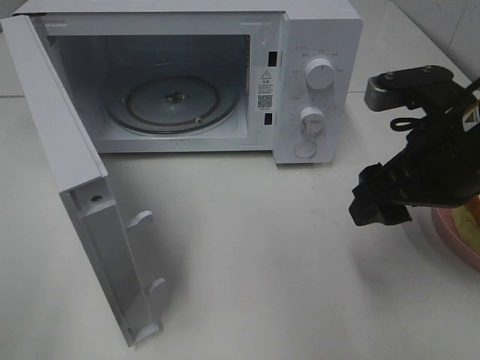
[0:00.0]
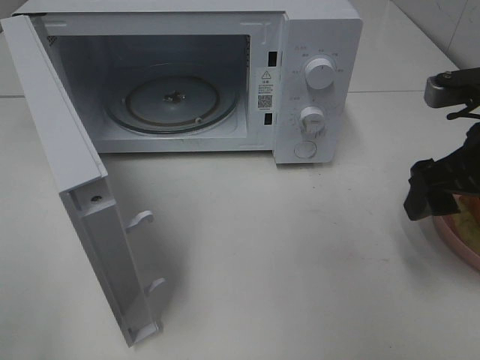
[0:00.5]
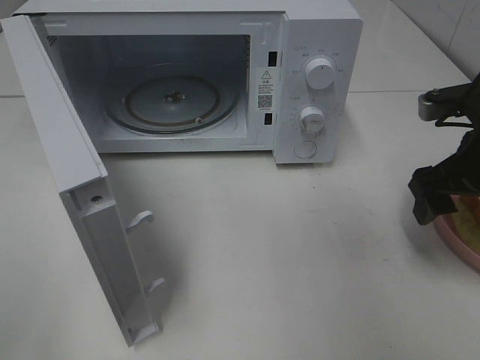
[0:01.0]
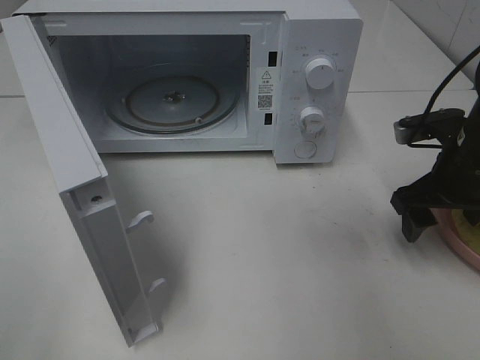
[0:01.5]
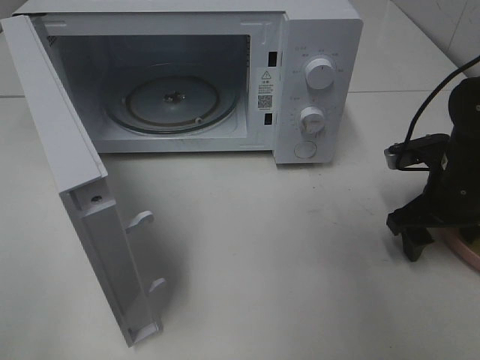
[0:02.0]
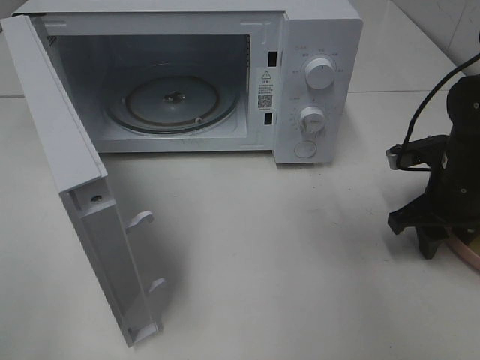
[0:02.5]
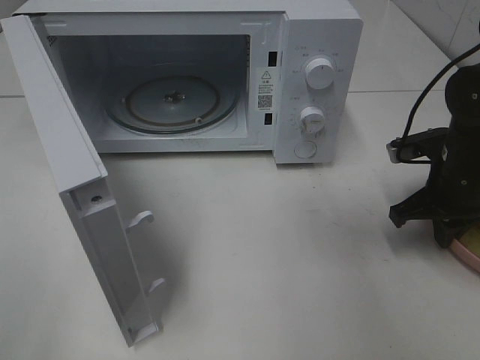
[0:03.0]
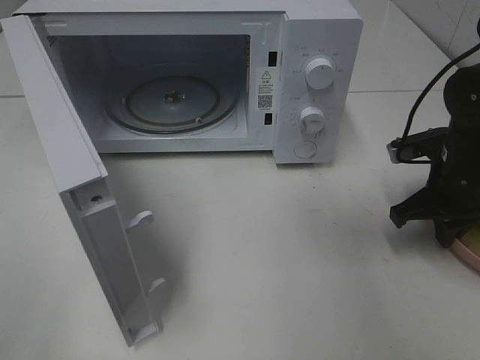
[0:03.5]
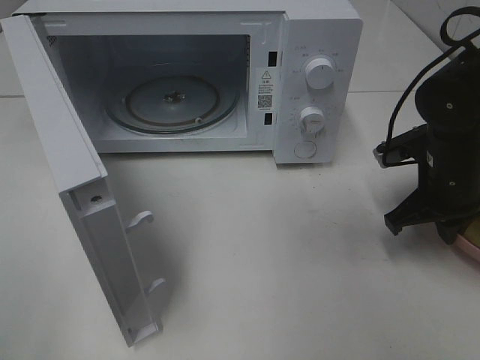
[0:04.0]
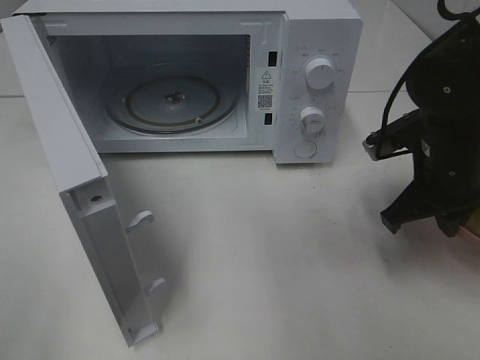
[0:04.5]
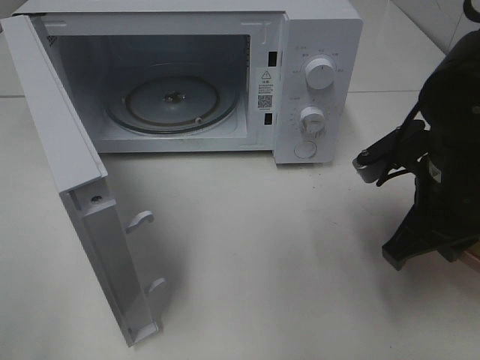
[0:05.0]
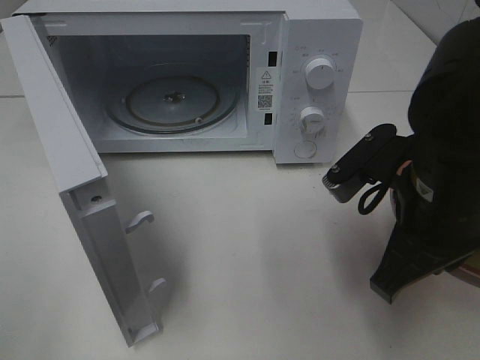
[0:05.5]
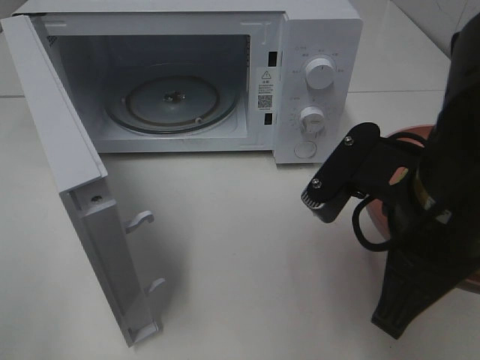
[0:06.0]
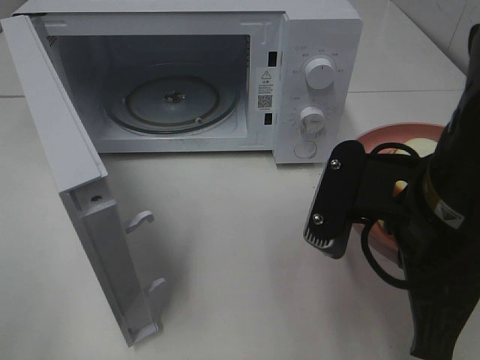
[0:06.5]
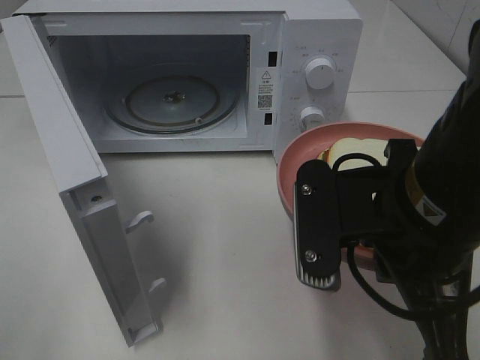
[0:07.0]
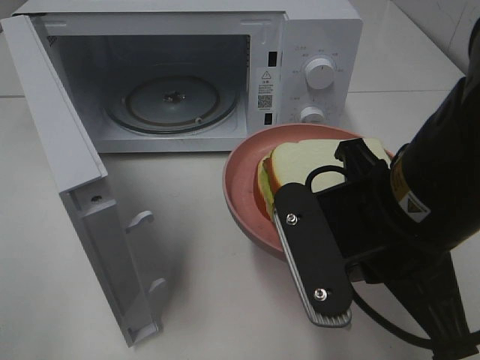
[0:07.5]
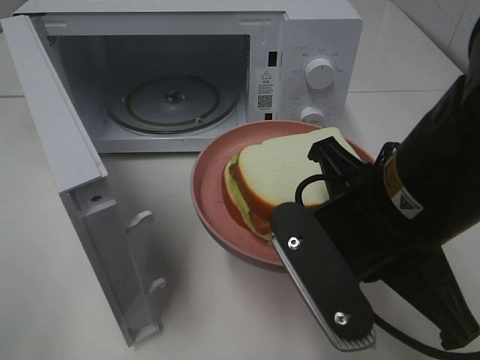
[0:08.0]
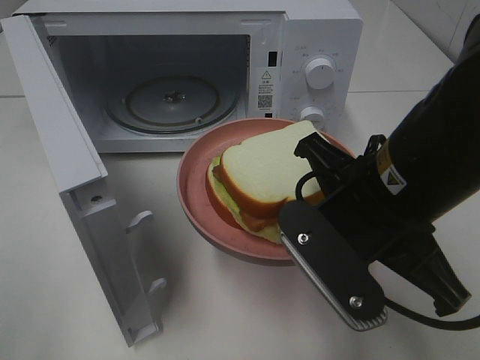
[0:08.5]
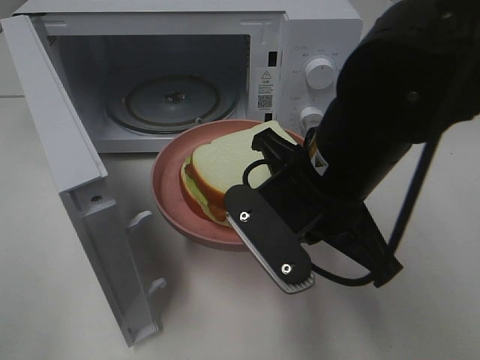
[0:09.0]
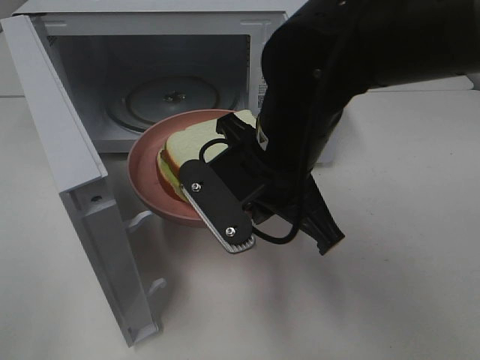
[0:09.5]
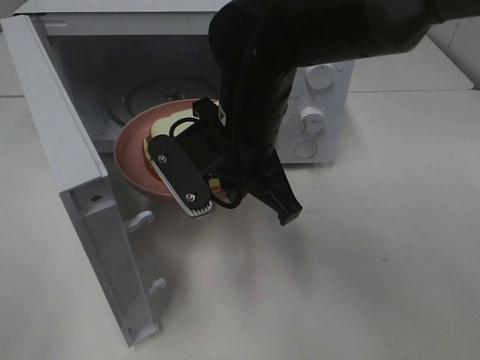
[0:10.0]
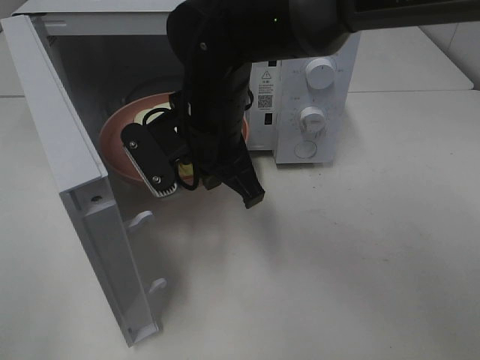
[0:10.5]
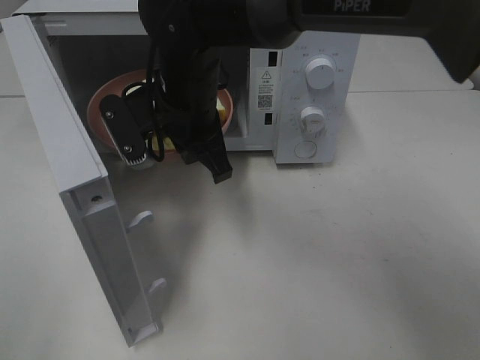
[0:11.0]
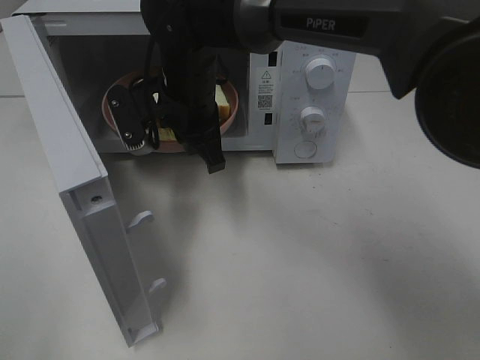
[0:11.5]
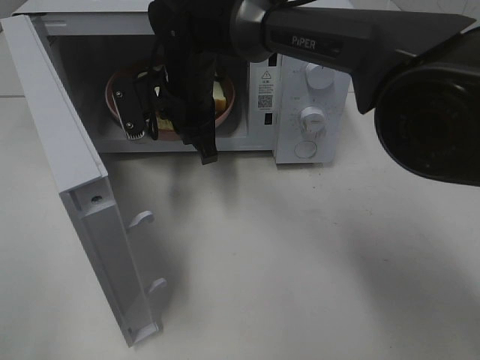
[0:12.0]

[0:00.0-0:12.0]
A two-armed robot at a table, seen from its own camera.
Task of the whole recording: Heat Sandwich.
Step, 0:00.0 to 0:02.5: Right hand: grab the plate with the sandwich.
0:00.0 to 0:02.0: The right gripper shifts about 15 cm downward, forward and to the right.
0:02.0 to 0:04.0: The right gripper closes its fingers.
0:04.0 to 0:06.0: The right gripper is displaced backward, to the left and upward by roughly 20 cm.
0:08.0 to 0:10.0: The right gripper goes some 15 cm forward and to the left.
0:10.0 to 0:12.0: The right gripper heads forward and to the left, covering about 15 cm.

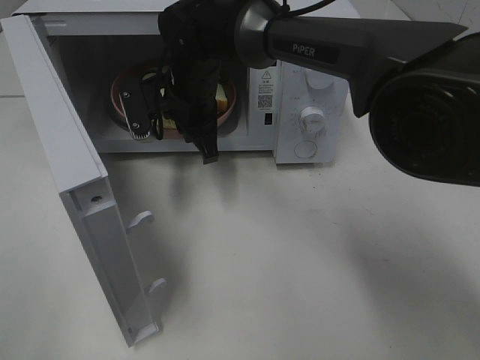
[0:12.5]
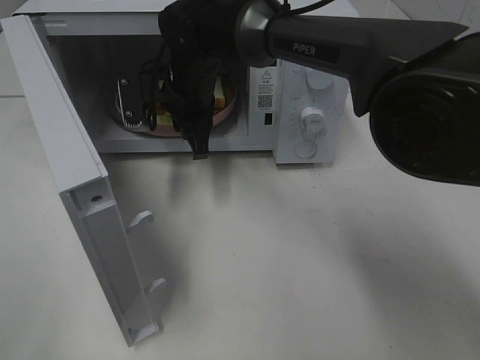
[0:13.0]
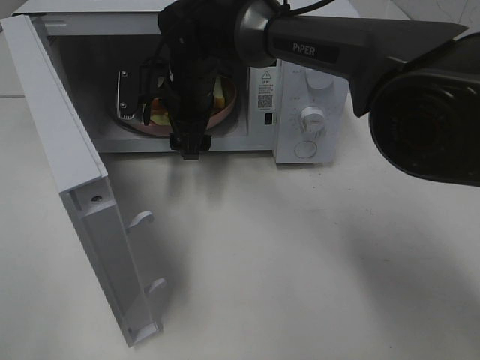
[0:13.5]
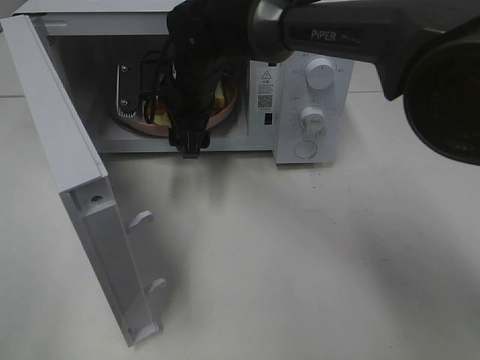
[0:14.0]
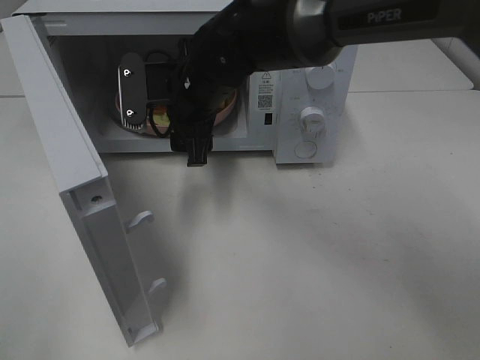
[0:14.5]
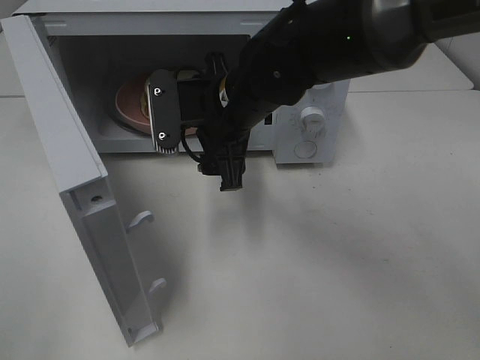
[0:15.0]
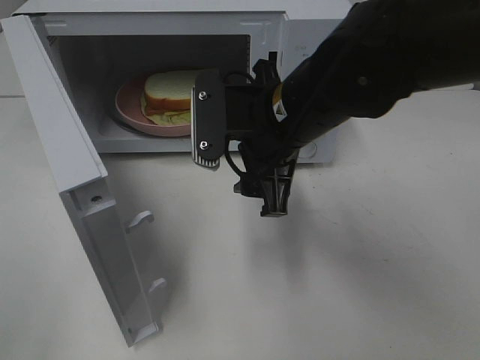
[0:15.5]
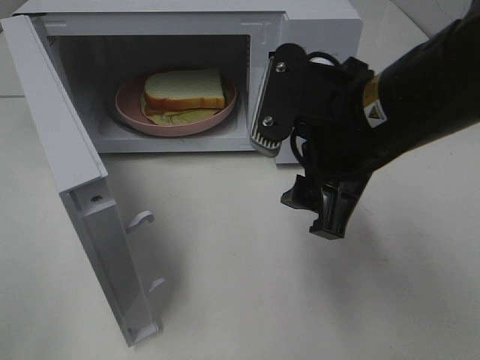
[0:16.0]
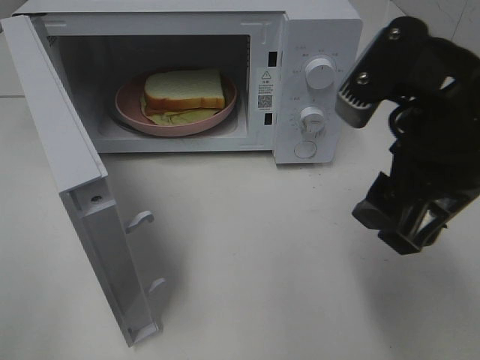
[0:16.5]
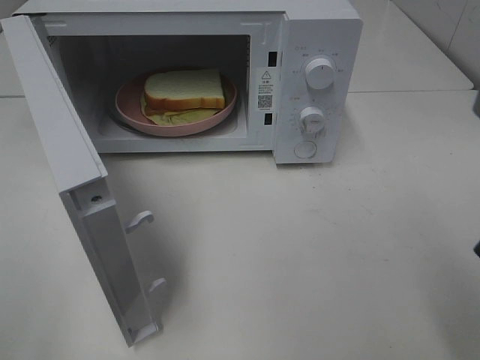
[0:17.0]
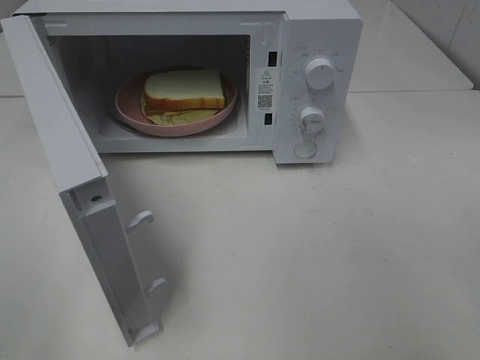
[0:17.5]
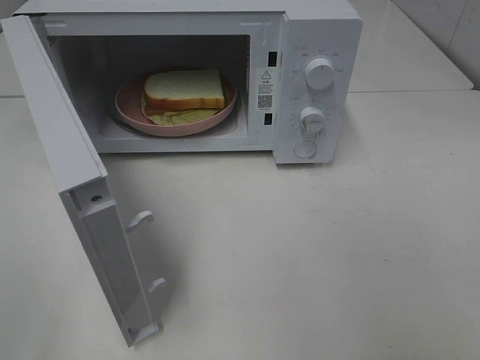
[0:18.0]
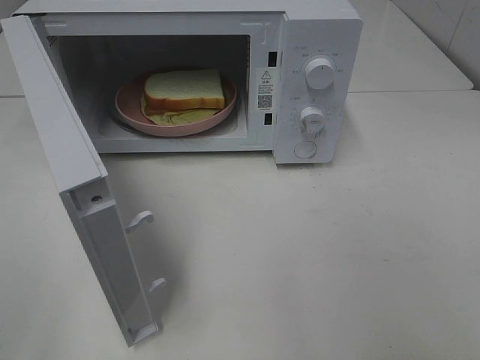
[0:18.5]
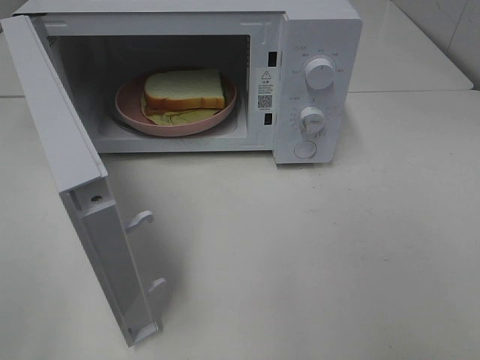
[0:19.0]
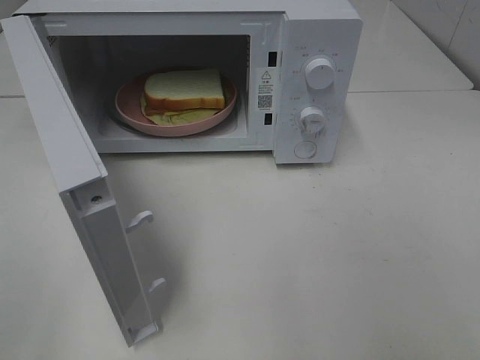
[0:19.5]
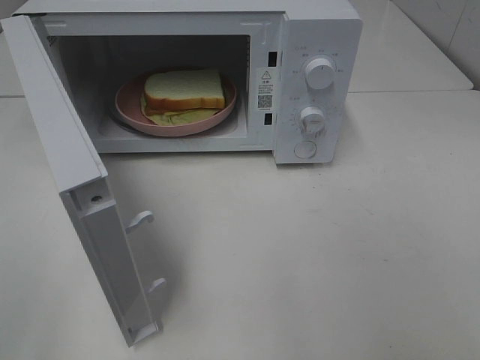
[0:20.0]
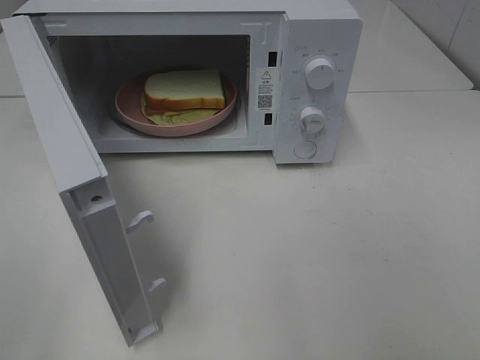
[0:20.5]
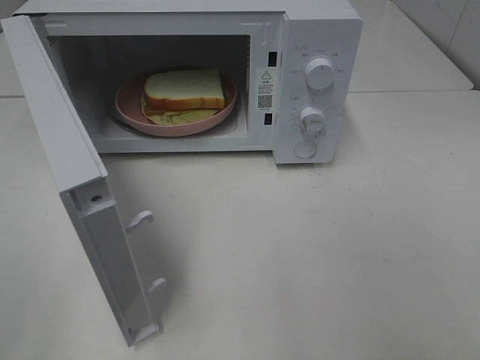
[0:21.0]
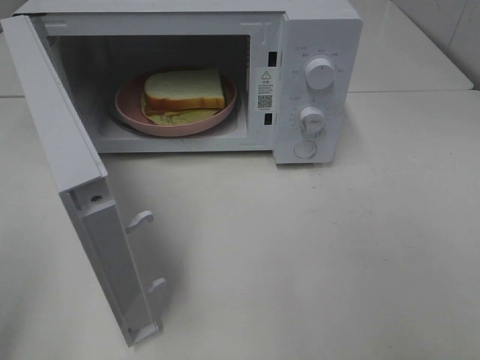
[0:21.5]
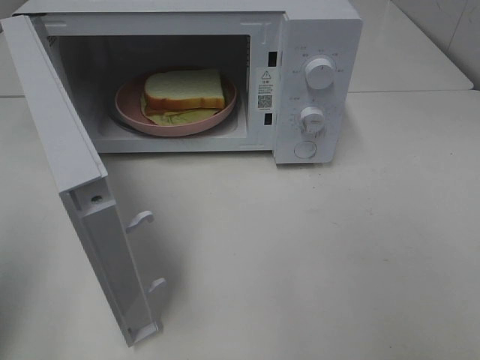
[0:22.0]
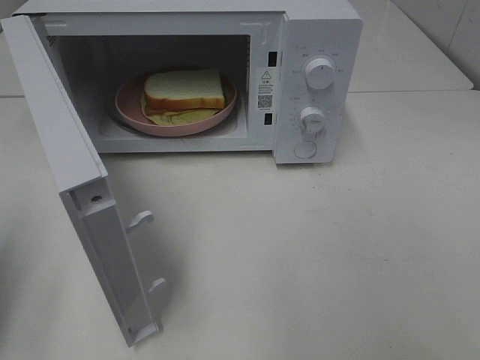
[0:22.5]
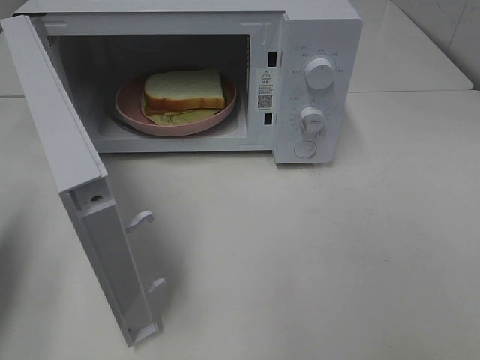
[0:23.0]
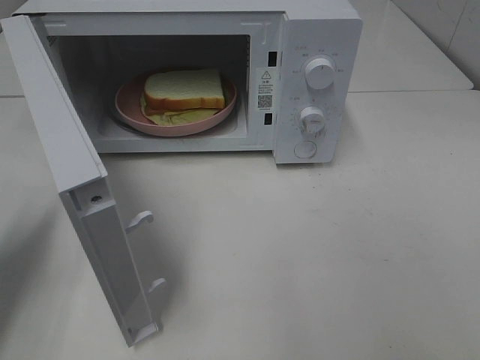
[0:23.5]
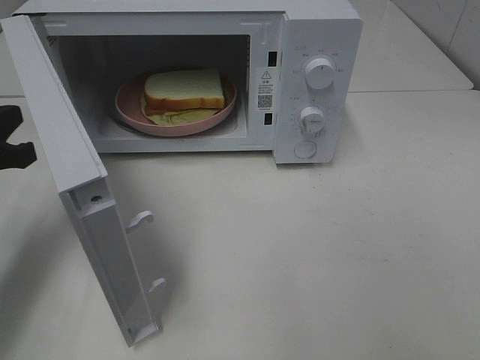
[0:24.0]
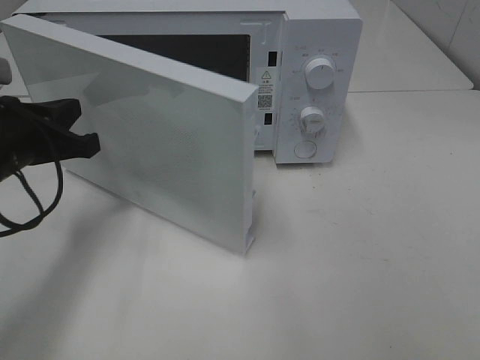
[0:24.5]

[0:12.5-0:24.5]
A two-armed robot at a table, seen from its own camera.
Task of the whole recording: Heat Sandwich.
Step, 0:12.5 to 0:14.5: Right hand: place the plate in the microwave.
0:12.5 to 0:14.5: The right gripper shifts by roughly 5 cm, and opens up.
0:14.5 to 0:16.5: The right gripper goes roughly 30 cm backward, to the right and upward.
0:16.5 to 0:18.5: The right gripper goes approximately 20 cm backward and to the right.
0:20.5 to 0:22.5: The left gripper shifts approximately 15 cm forward, and closes.
0:22.5 to 0:24.5: The left gripper is displaced forward, to the right and downward by some 20 cm.

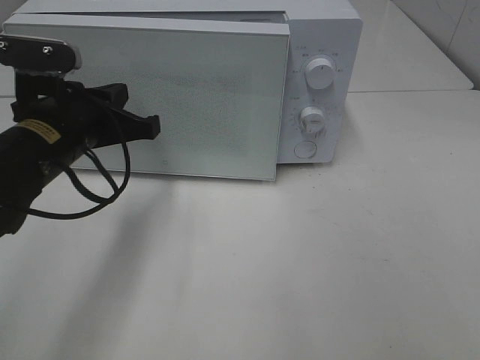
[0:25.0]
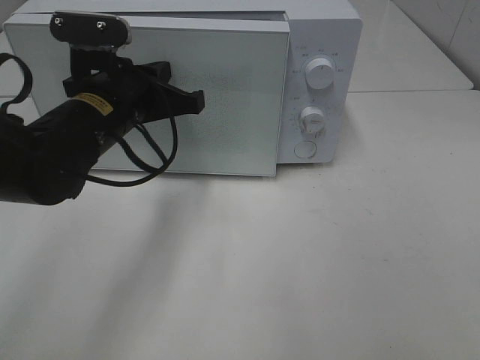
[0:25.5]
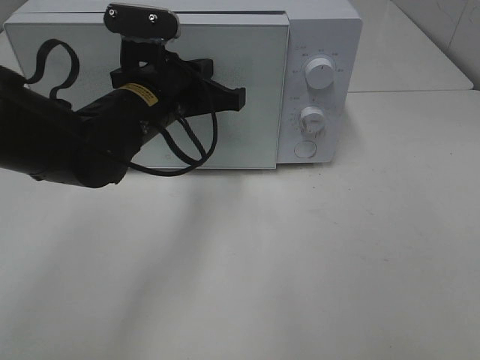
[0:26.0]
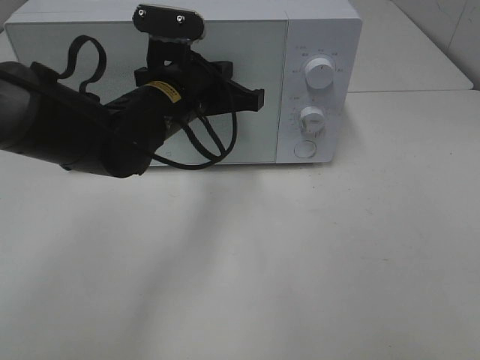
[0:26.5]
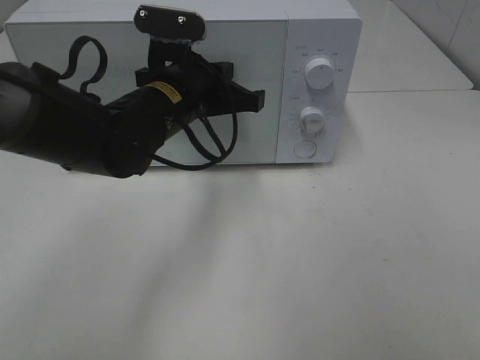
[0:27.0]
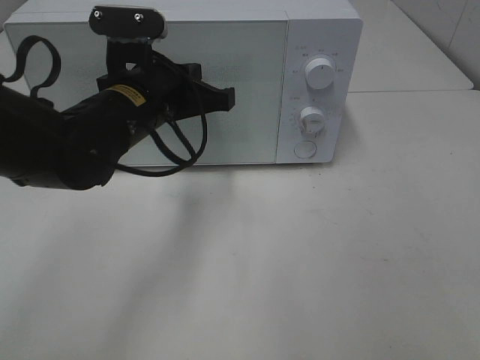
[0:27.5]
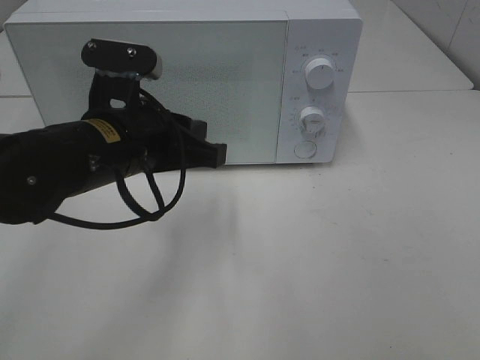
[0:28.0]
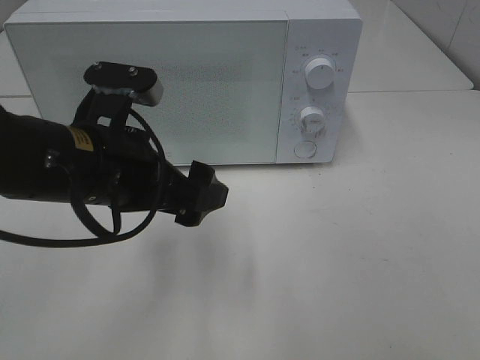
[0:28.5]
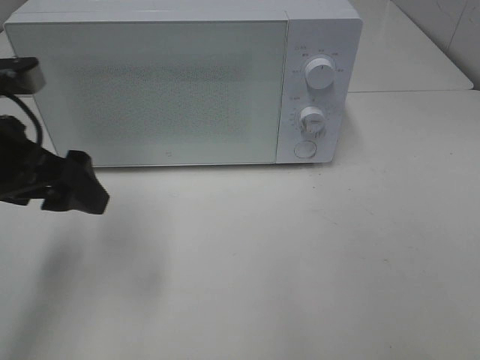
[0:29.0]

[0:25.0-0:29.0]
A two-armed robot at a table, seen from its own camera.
Task of the whole recording: Heat Sandwich.
0:25.0 to 0:27.0: The left gripper is displaced to the right and forward by approximately 10 cm.
0:27.0 to 0:29.0: The left gripper moves to the left and backward, roughly 20 cm, and opens its fingers.
